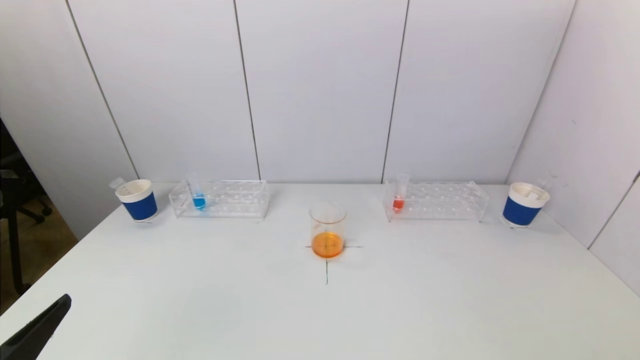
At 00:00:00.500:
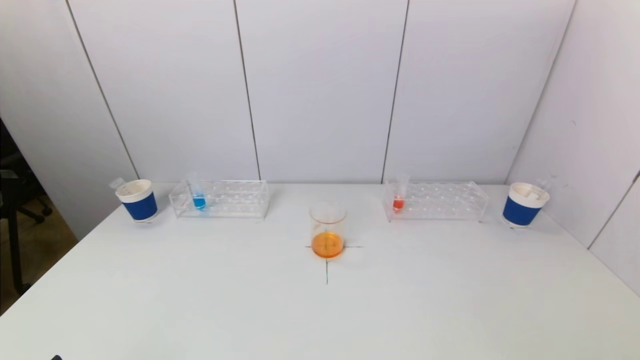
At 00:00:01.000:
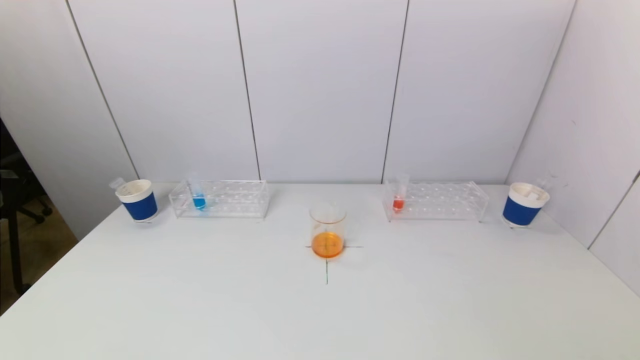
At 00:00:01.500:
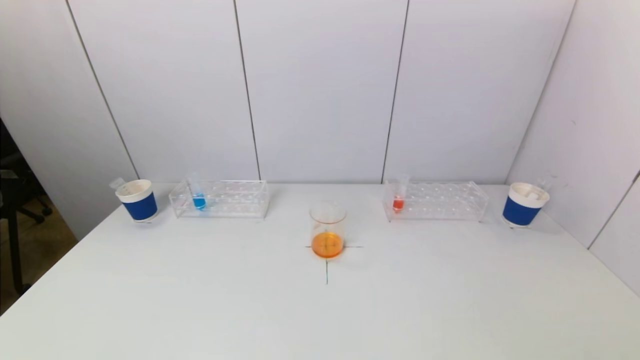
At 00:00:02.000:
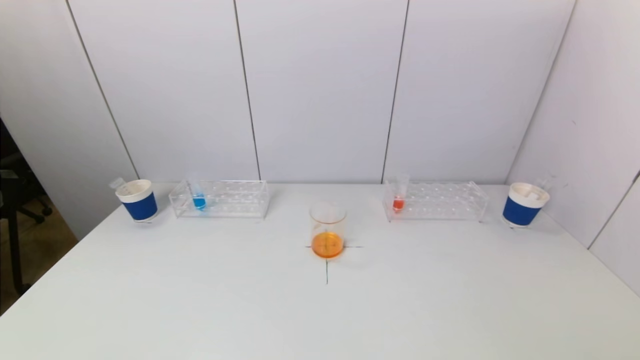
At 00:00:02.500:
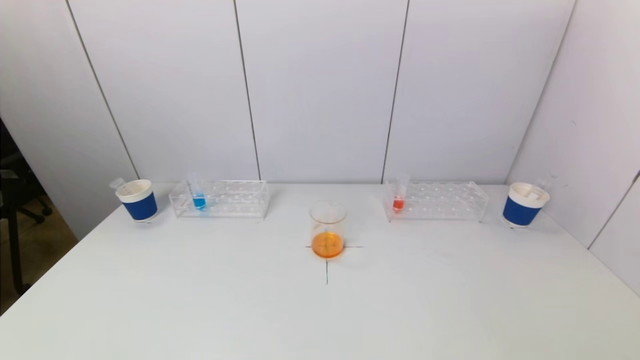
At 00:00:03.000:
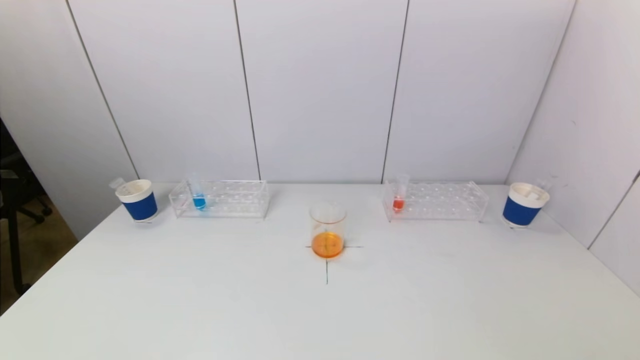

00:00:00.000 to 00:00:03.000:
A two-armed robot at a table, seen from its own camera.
Task of the whole recording: pick up a test tube with pigment on left test tube rack and a test tube with pigment on right test tube rack by grippers and pour them into the beaker.
00:00:00.000 to 00:00:01.500: The left gripper is displaced downward and backward by roughly 10 cm.
00:00:01.500 to 00:00:03.000: Neither gripper changes place.

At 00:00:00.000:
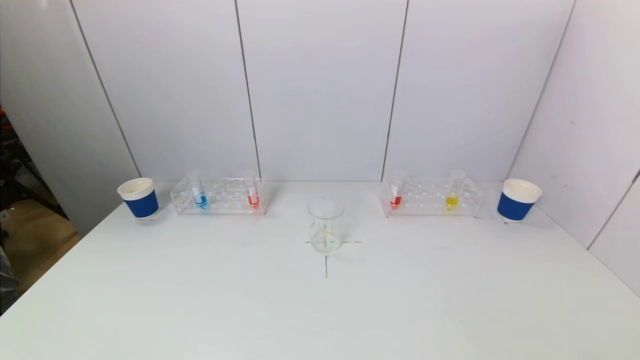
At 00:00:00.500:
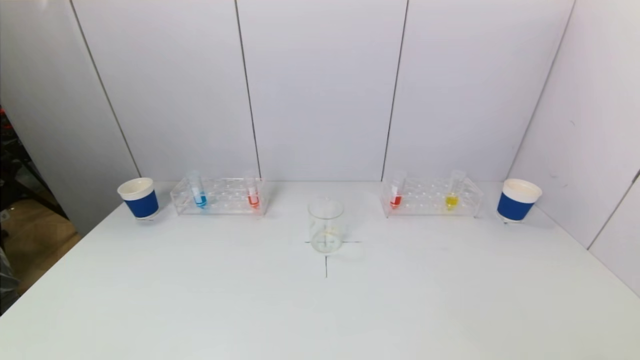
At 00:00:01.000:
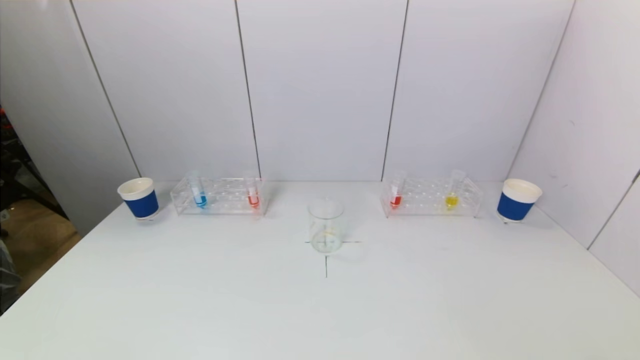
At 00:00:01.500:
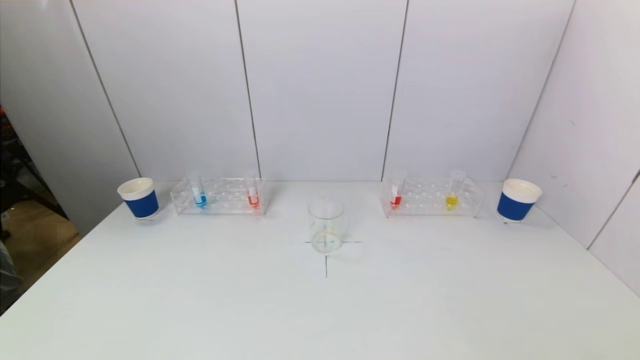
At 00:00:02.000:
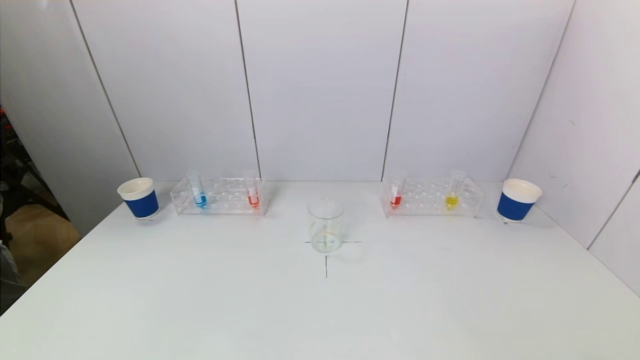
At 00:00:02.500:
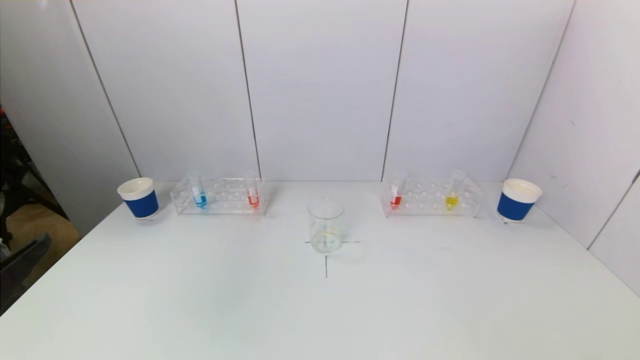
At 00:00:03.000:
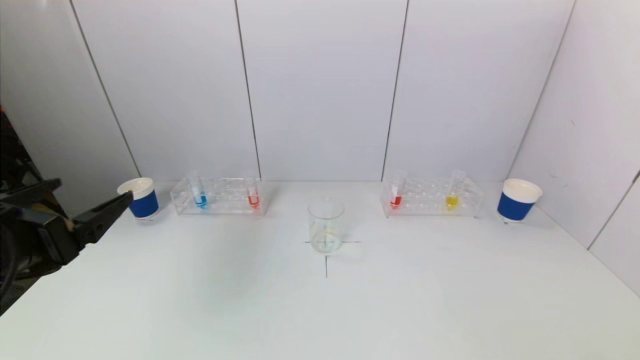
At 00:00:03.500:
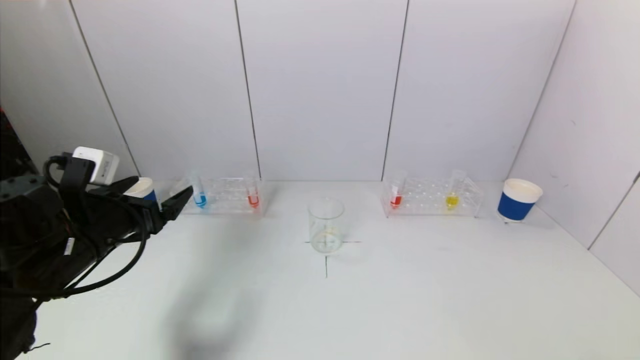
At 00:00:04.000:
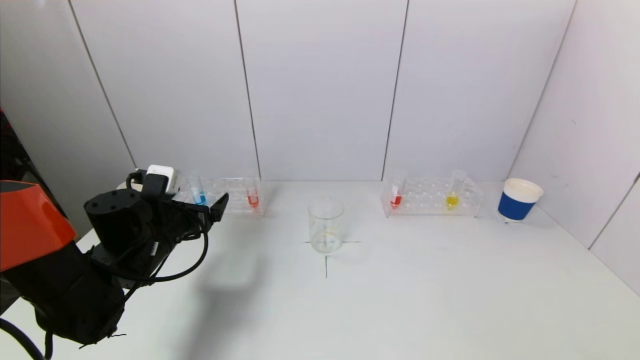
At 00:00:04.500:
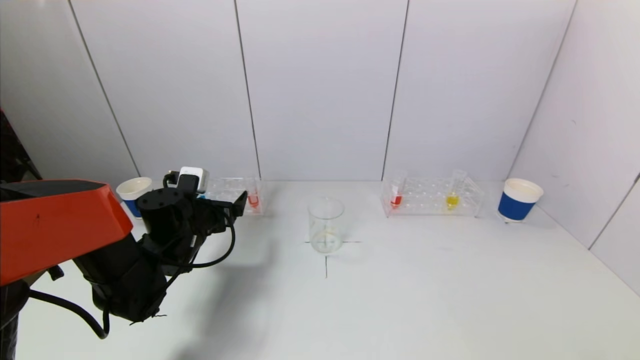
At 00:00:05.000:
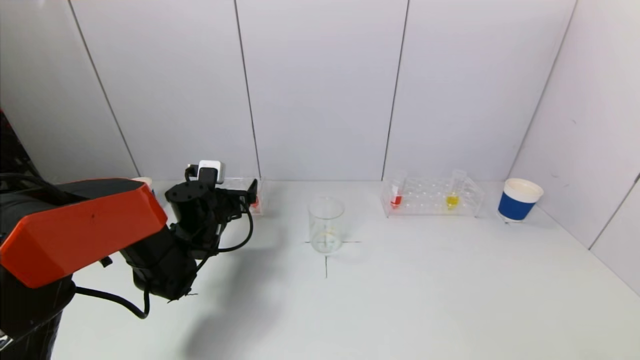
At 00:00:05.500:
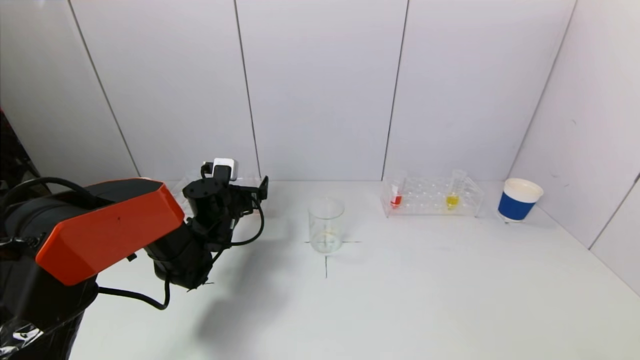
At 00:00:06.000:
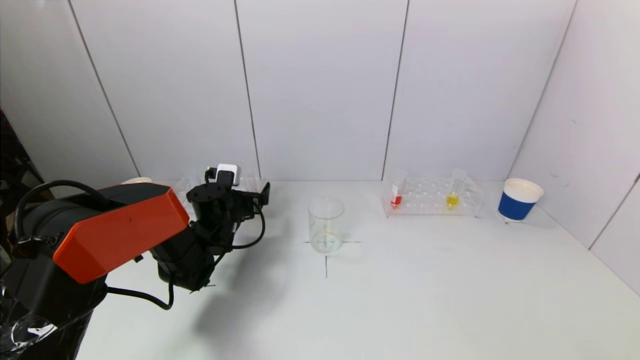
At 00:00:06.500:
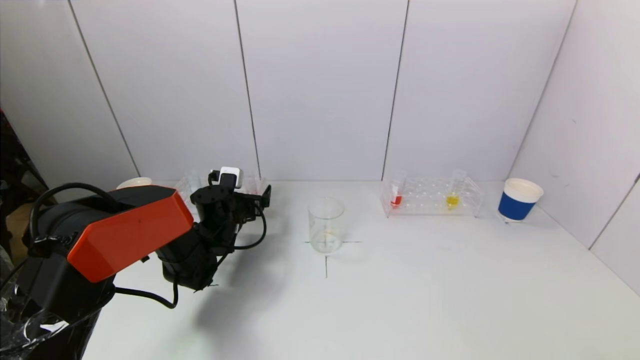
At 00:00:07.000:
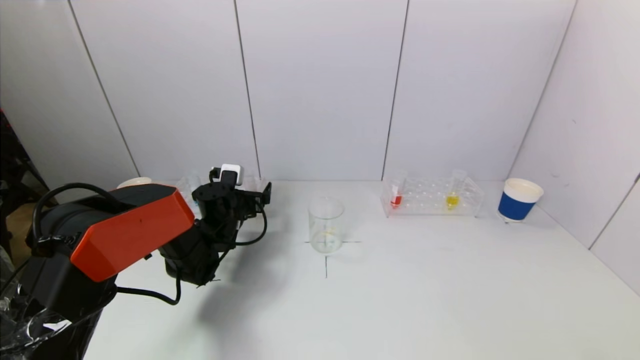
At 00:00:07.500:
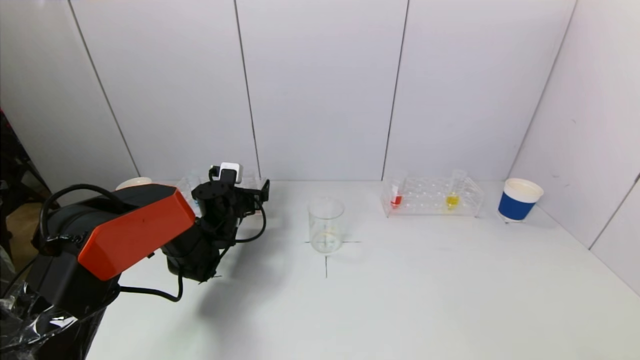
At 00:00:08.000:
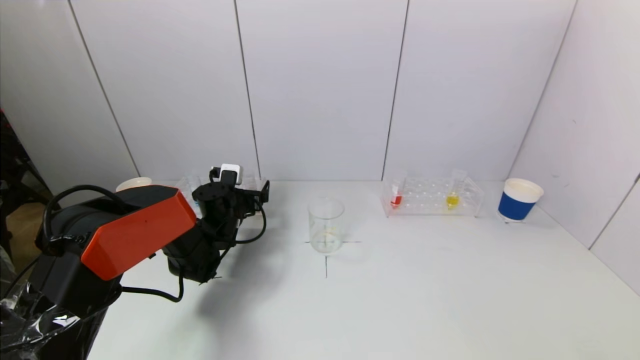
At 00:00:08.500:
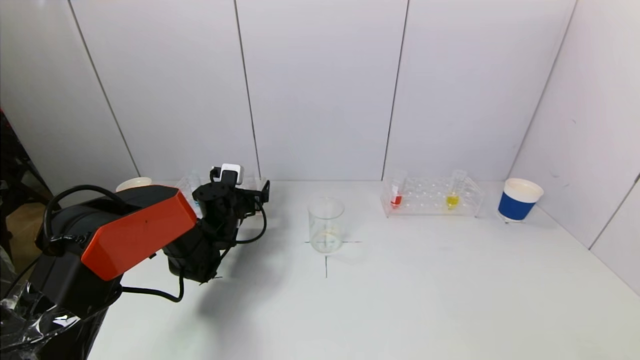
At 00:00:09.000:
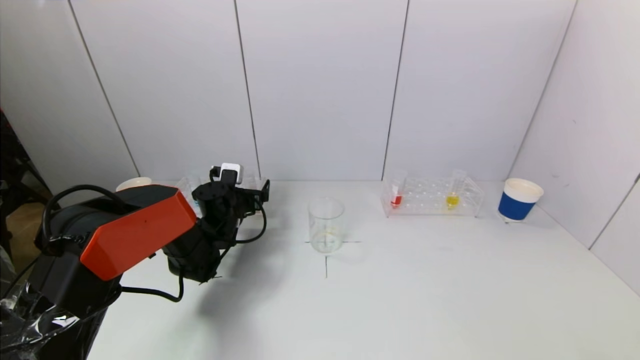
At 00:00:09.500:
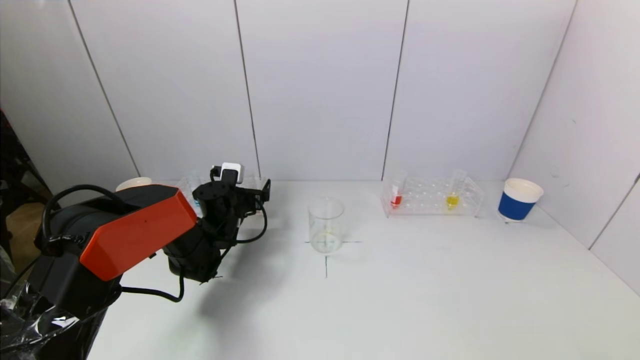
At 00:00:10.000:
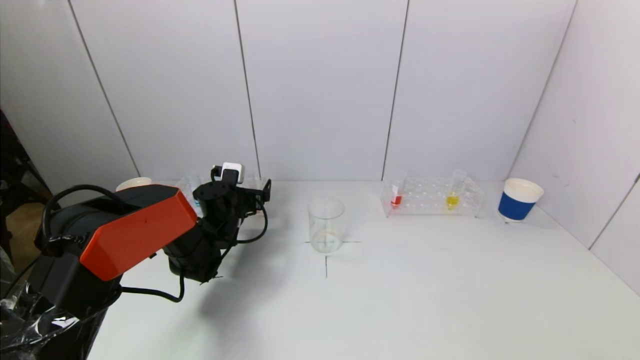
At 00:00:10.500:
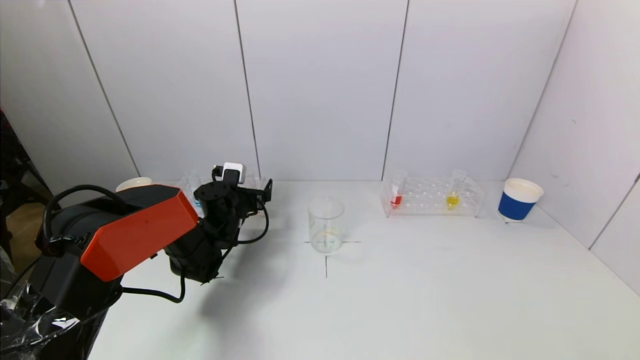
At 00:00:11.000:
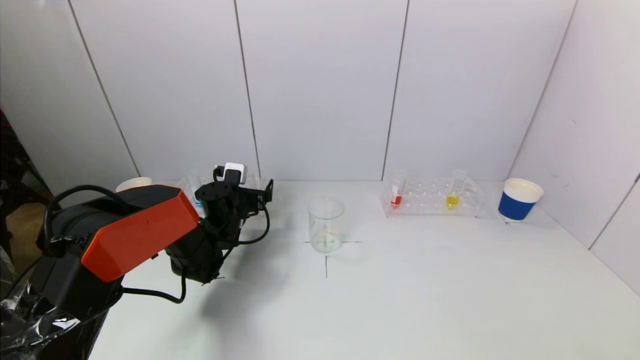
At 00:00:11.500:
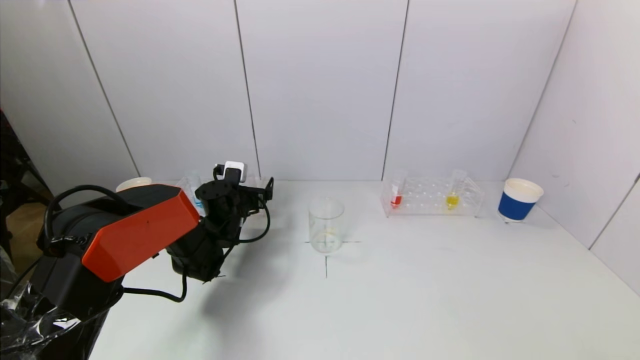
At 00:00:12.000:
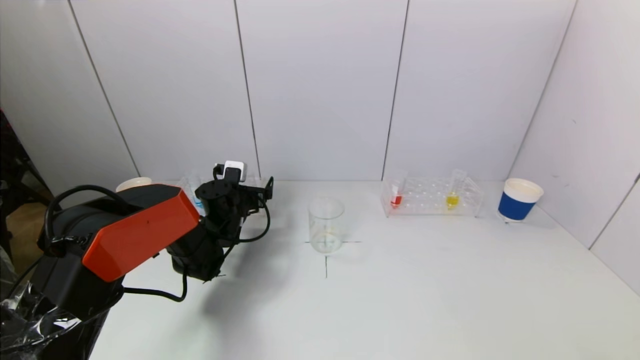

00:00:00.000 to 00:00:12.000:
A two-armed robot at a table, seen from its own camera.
Task of the whole recording: pick up a test tube with pigment on left test tube rack and a test tube with pigment on right test tube rack by grippers and pour them into the beaker.
00:00:02.000 to 00:00:04.000: The left gripper heads forward, covering some 30 cm.
00:00:04.000 to 00:00:06.000: The left gripper heads forward, to the right and downward, covering about 15 cm.
00:00:06.000 to 00:00:08.000: The grippers make only small movements.
00:00:08.000 to 00:00:12.000: Neither gripper changes place.

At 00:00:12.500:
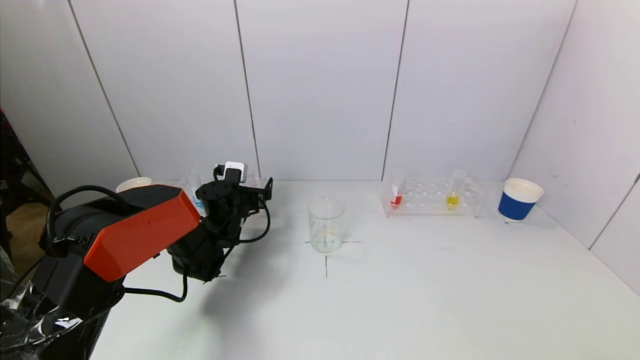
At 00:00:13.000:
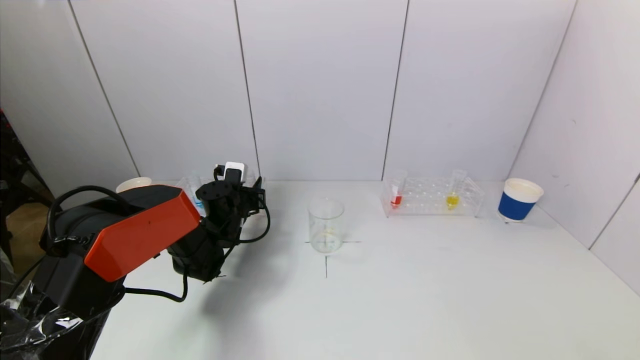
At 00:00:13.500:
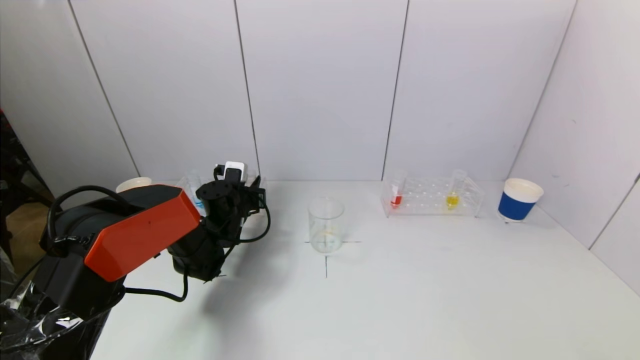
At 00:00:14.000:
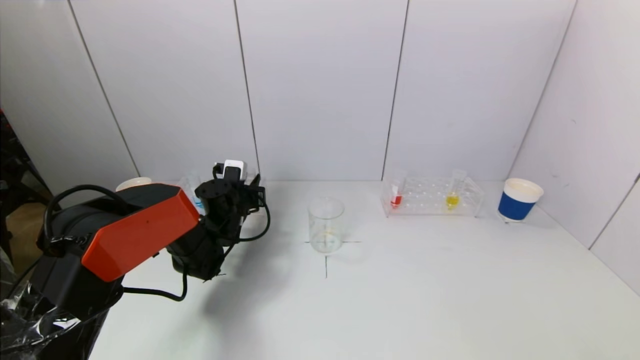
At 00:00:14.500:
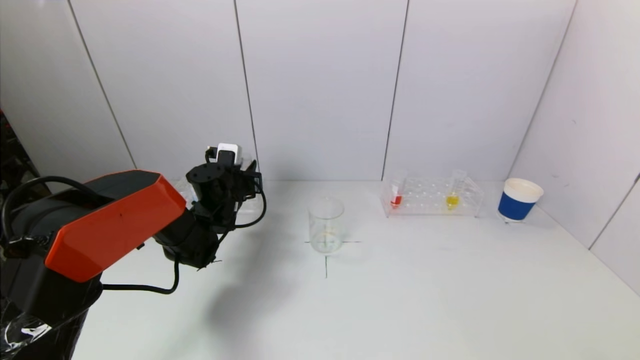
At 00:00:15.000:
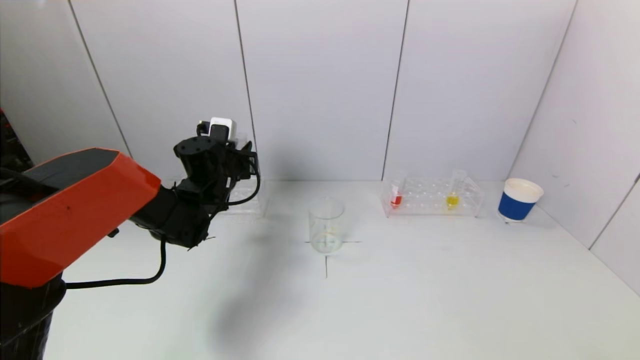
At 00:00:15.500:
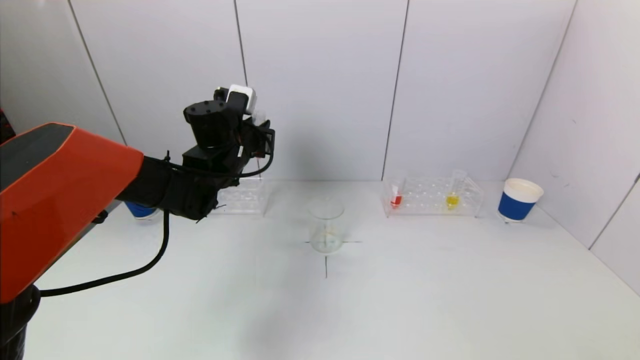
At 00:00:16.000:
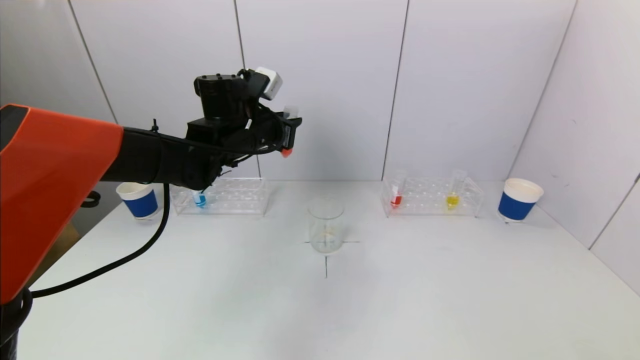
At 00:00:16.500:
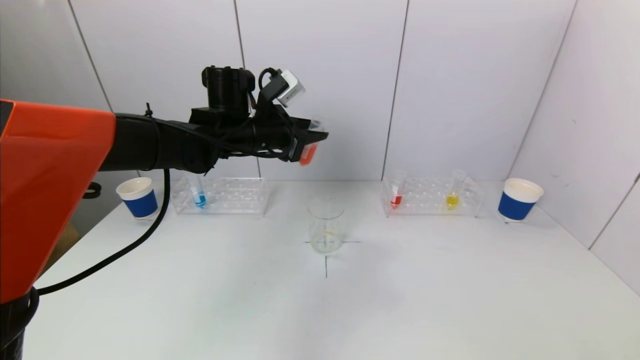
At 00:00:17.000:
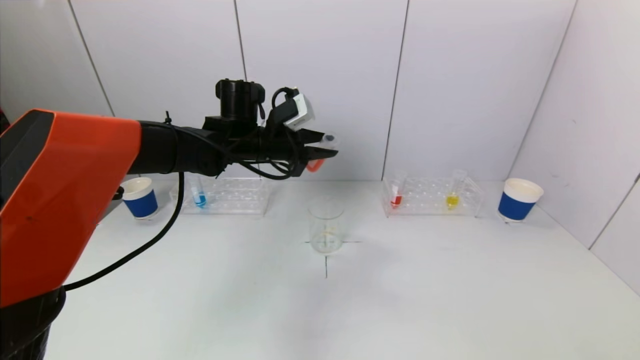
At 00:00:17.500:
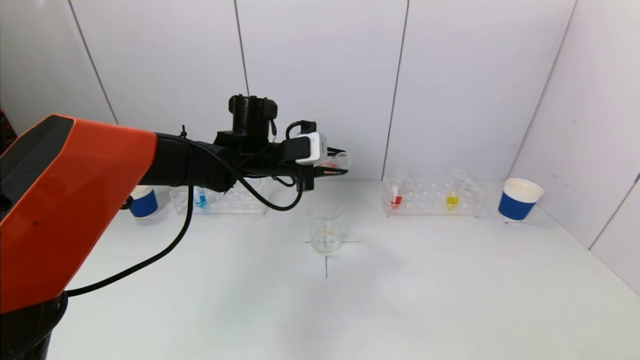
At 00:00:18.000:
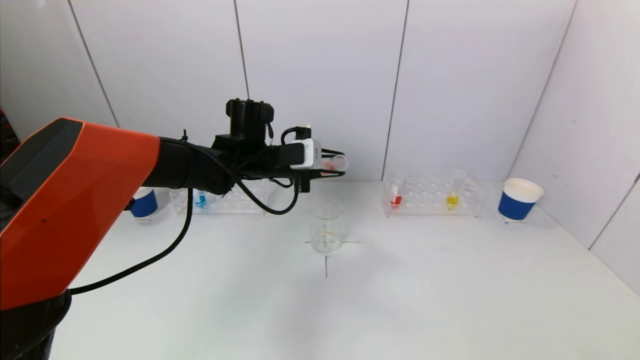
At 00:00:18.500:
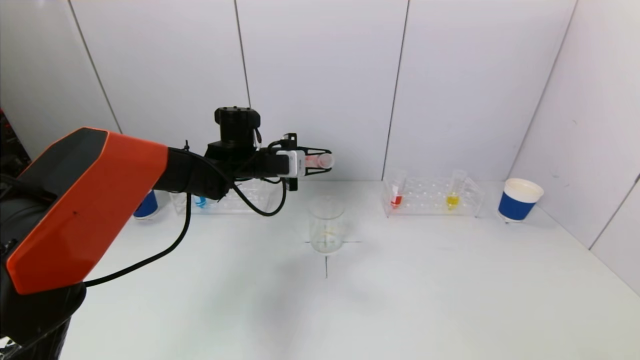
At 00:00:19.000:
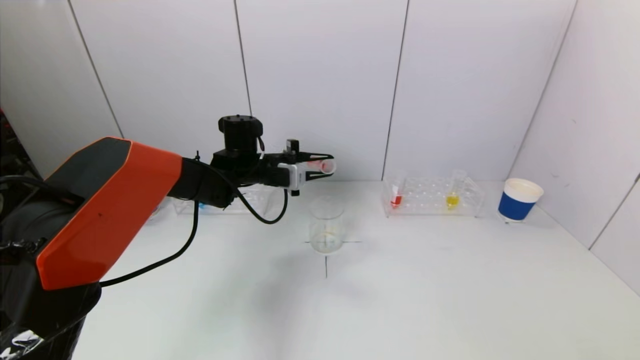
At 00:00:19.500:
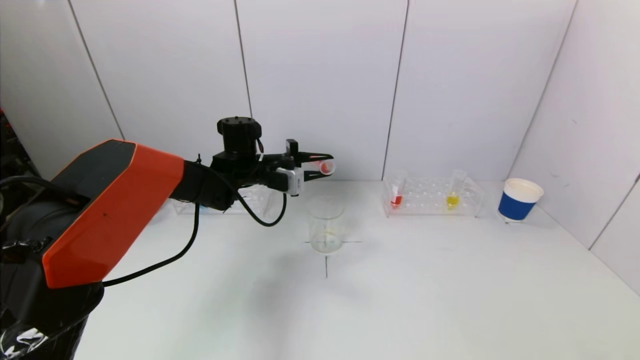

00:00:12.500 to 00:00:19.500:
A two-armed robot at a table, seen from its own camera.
Task of the whole recording: pick up a test tube with pigment on left test tube rack and a test tube with pigment on right test tube rack by grippers and pour them into the beaker.
00:00:12.500 to 00:00:14.500: The left gripper closes its fingers.
00:00:14.500 to 00:00:16.000: The left gripper heads upward, covering some 15 cm.
00:00:16.000 to 00:00:17.500: The left gripper ends up about 5 cm from where it was.
00:00:17.500 to 00:00:19.500: The left gripper changes place by approximately 5 cm.
